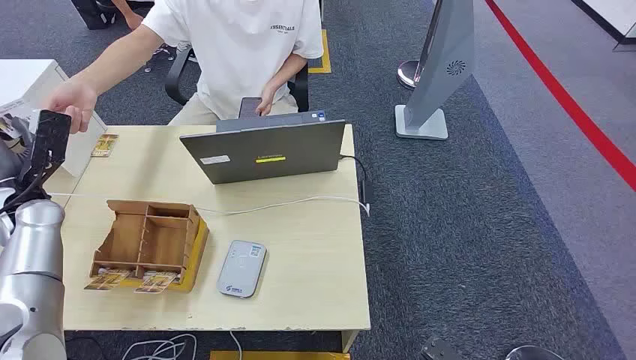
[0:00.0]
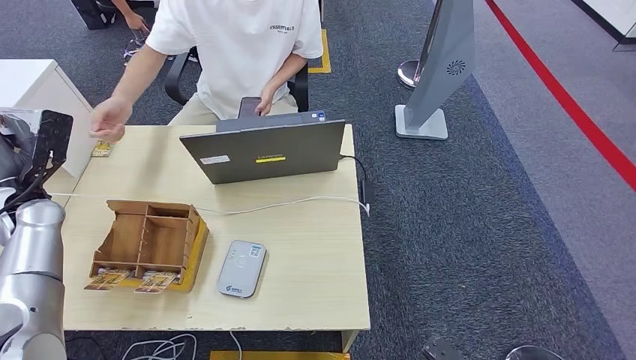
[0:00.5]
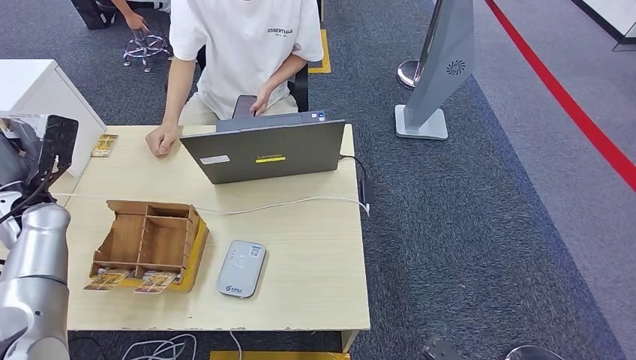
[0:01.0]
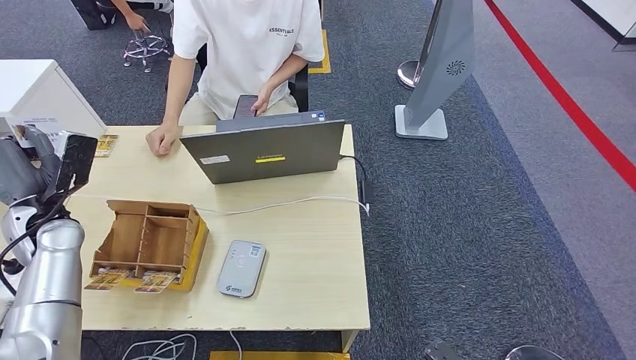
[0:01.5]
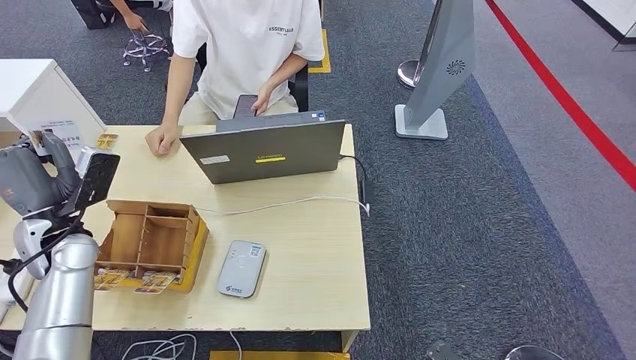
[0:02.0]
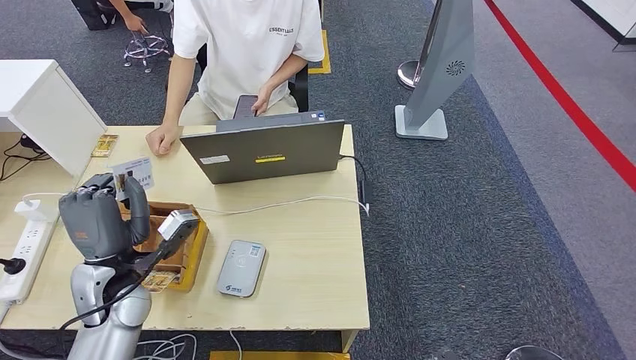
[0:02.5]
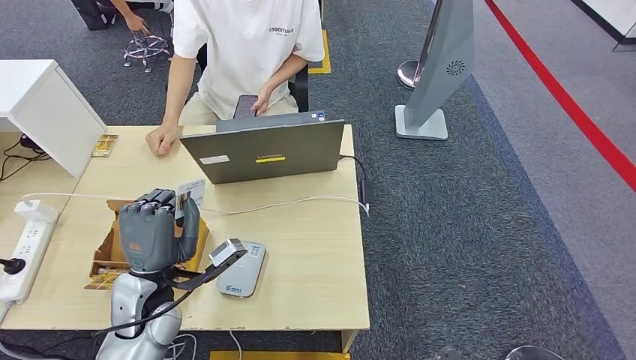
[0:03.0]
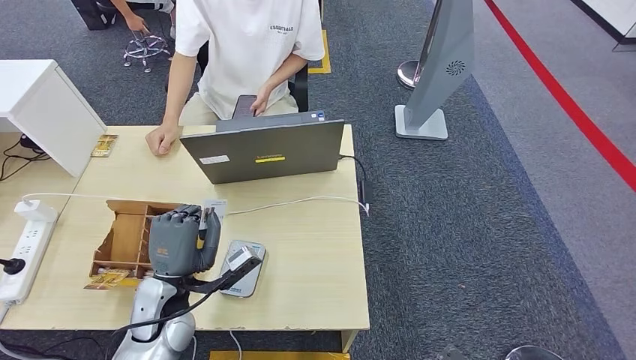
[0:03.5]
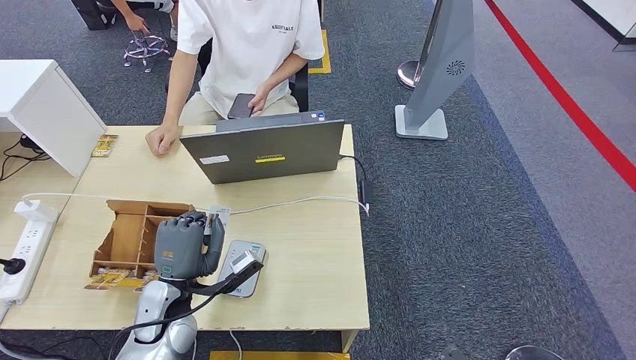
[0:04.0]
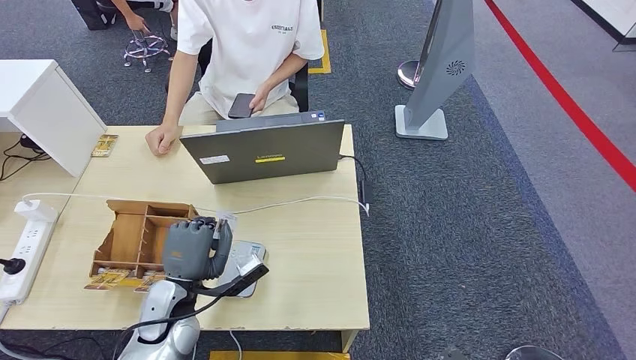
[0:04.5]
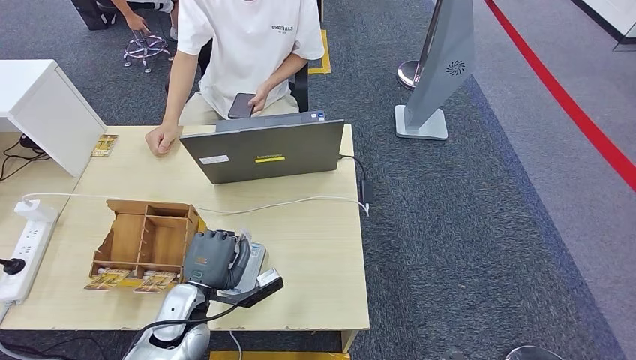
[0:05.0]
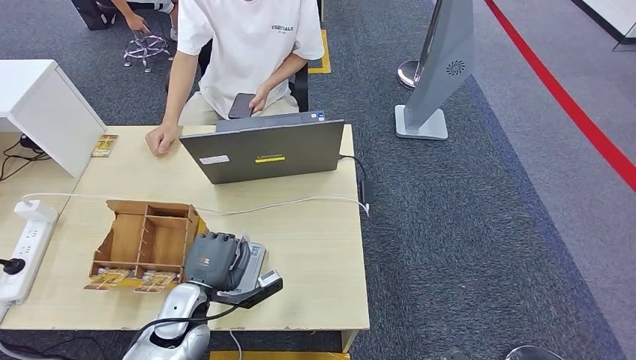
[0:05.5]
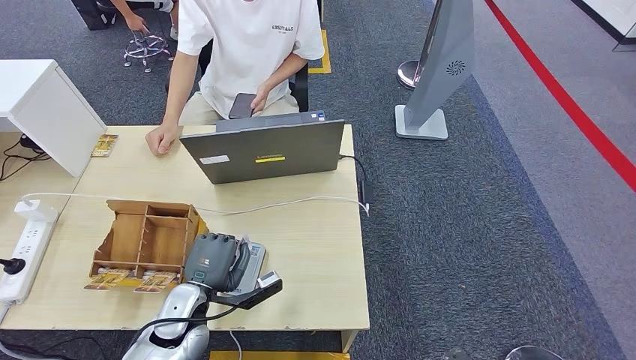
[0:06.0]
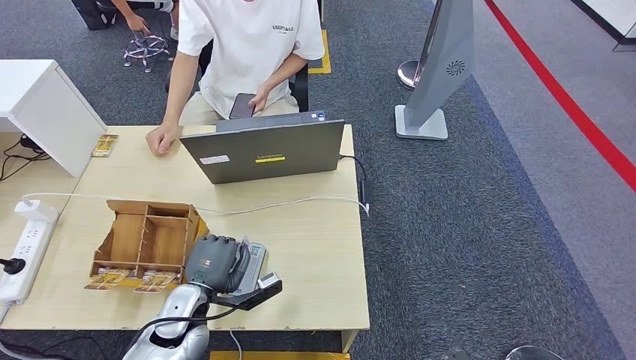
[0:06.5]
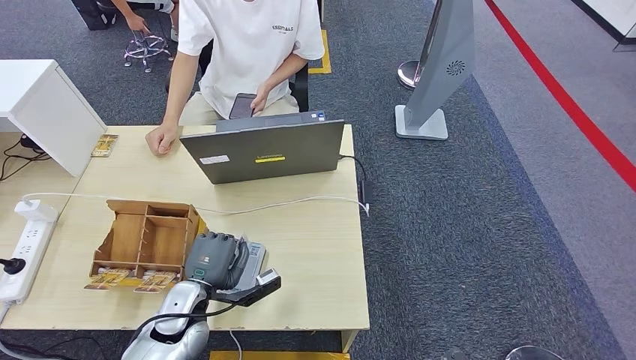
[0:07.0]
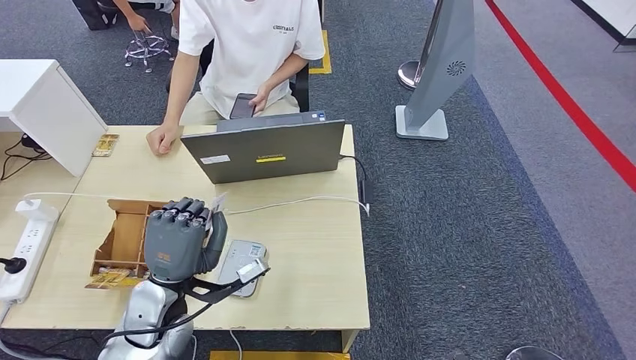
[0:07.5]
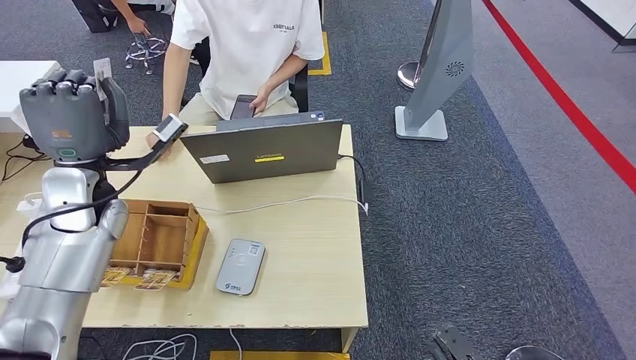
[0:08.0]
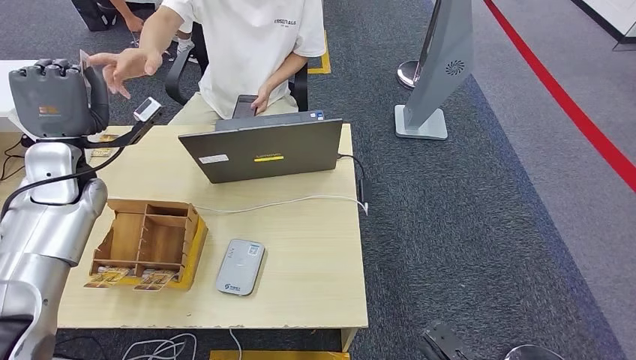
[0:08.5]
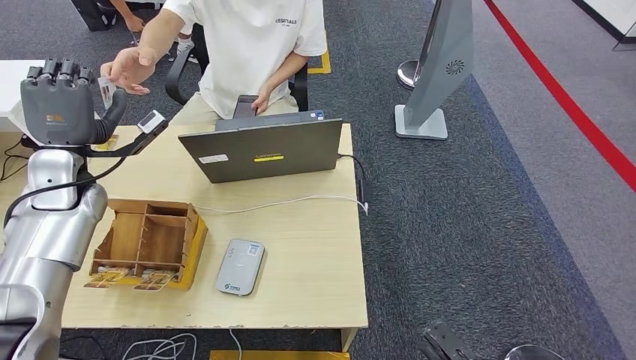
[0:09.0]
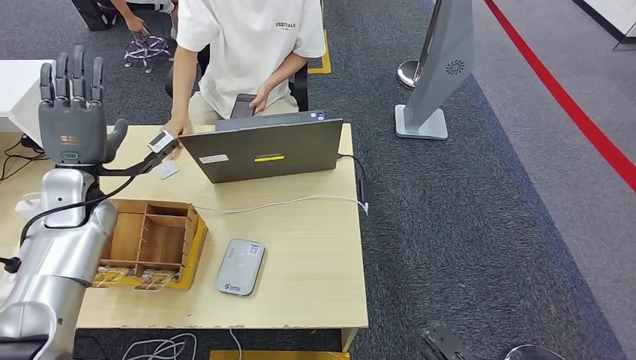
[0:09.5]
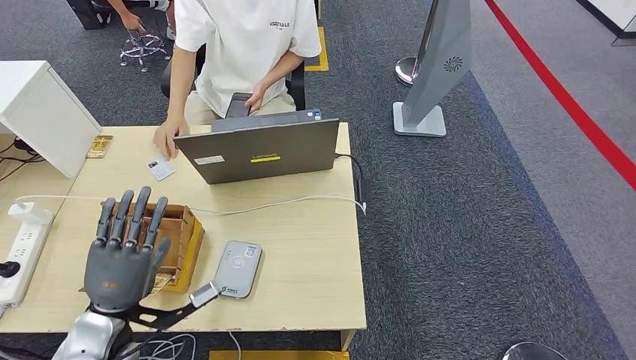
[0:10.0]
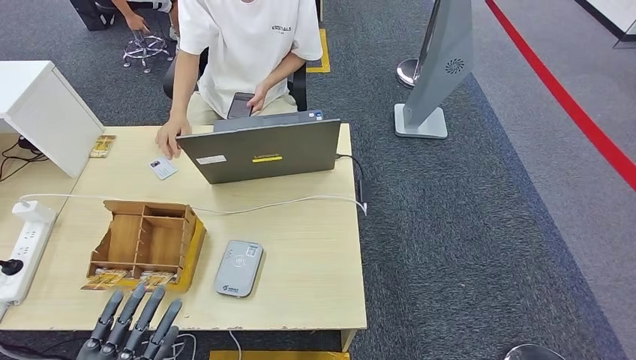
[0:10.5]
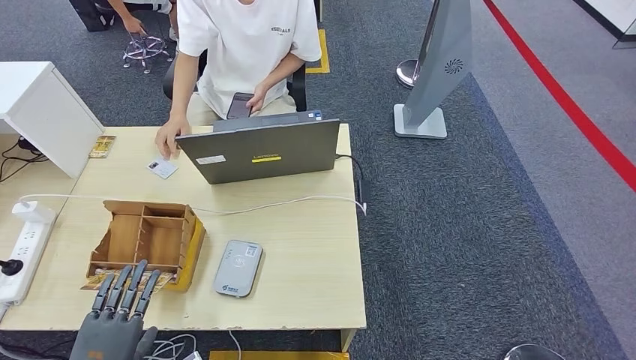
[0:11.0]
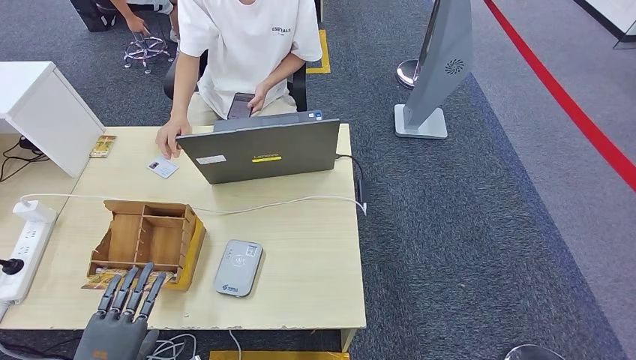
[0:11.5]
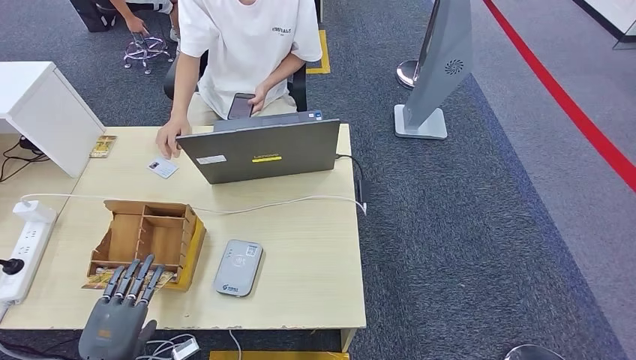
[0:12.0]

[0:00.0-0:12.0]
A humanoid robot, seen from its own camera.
Step, 0:00.0 to 0:00.5: Take the ID card from the person's hand.
Step, 0:01.0 to 0:08.0: Place the ID card on the card reader.
0:02.0 to 0:04.0: The left hand goes about 20 cm to the right, downward and backward.
0:06.0 to 0:08.0: The left hand shifts approximately 25 cm upward, forward and to the left.
0:10.0 to 0:12.0: The left hand goes roughly 10 cm backward and downward.

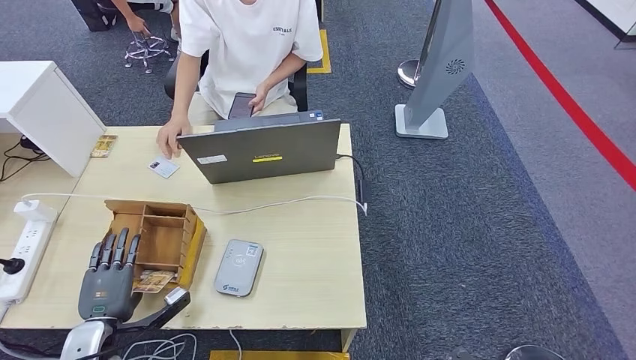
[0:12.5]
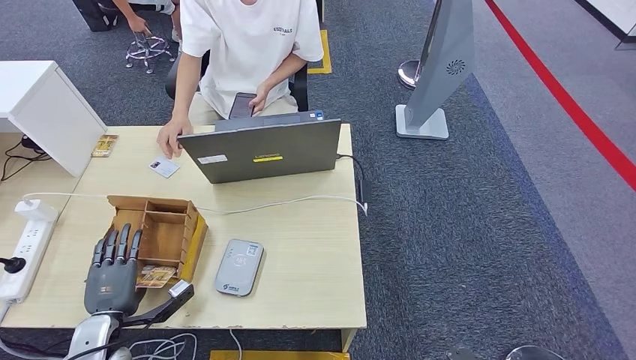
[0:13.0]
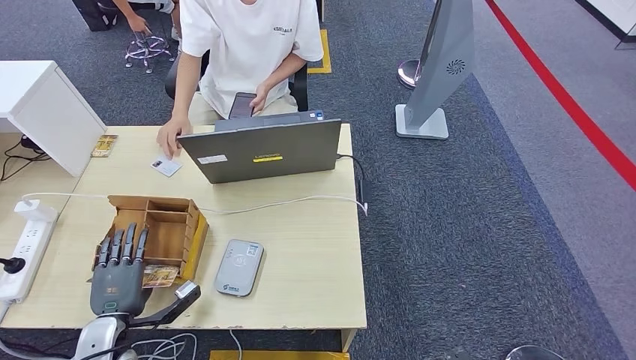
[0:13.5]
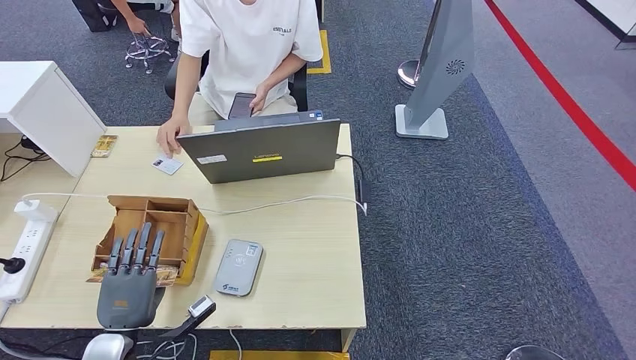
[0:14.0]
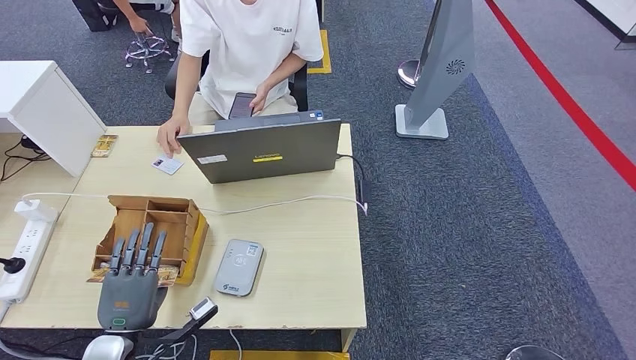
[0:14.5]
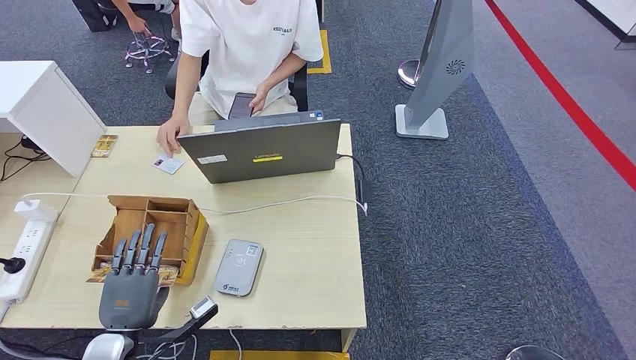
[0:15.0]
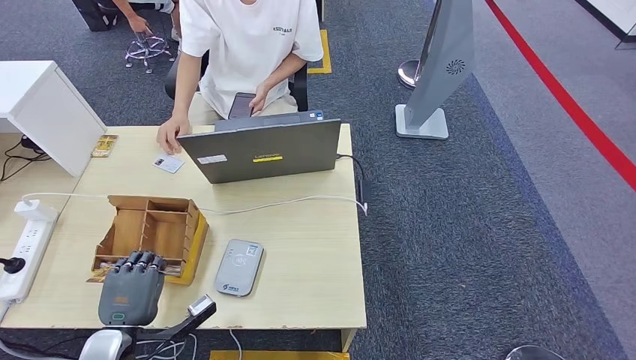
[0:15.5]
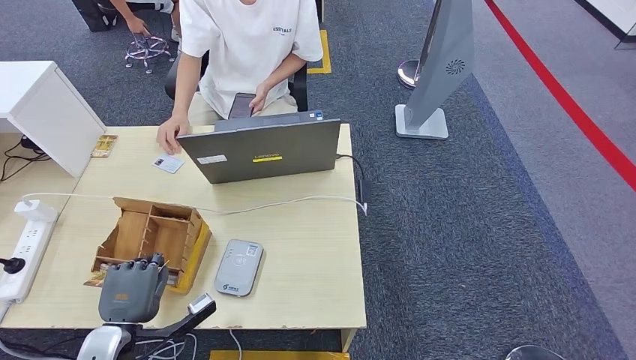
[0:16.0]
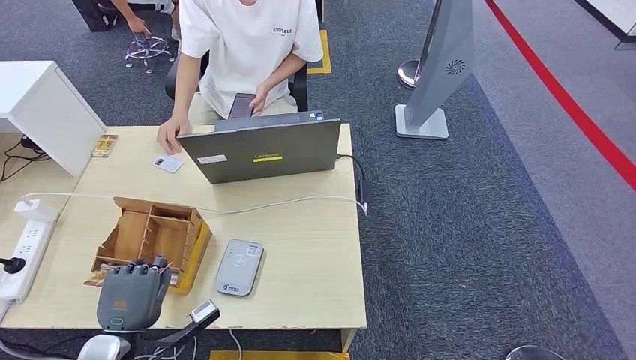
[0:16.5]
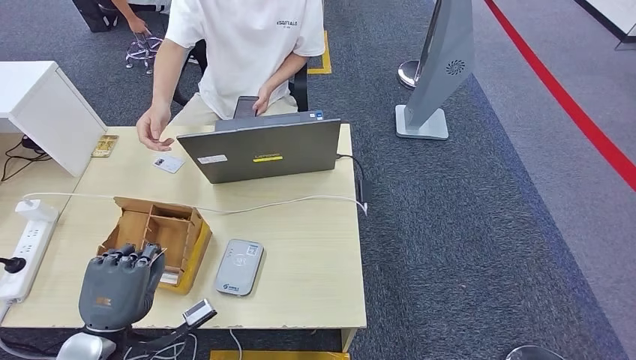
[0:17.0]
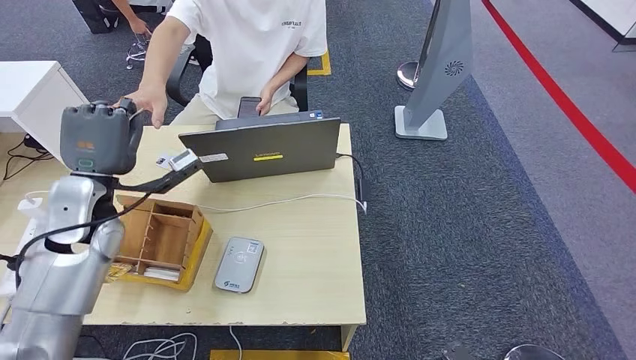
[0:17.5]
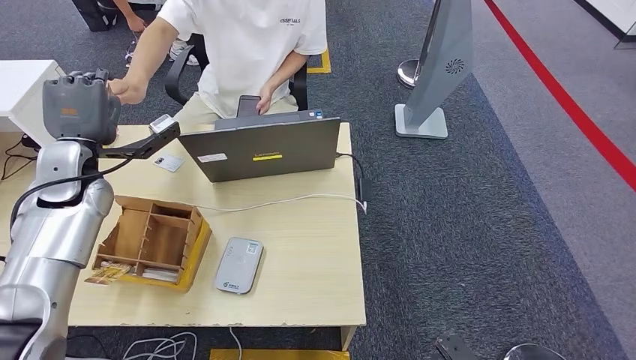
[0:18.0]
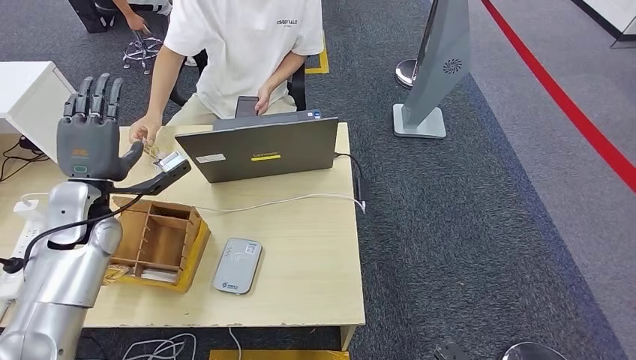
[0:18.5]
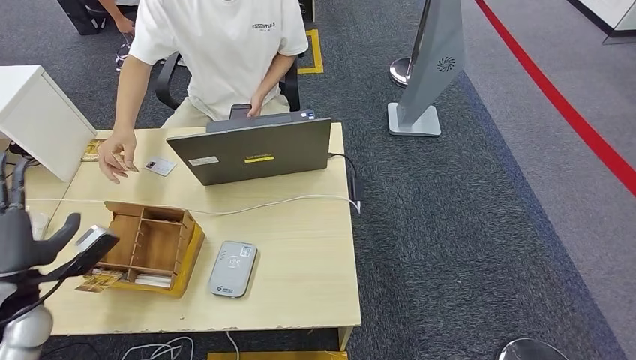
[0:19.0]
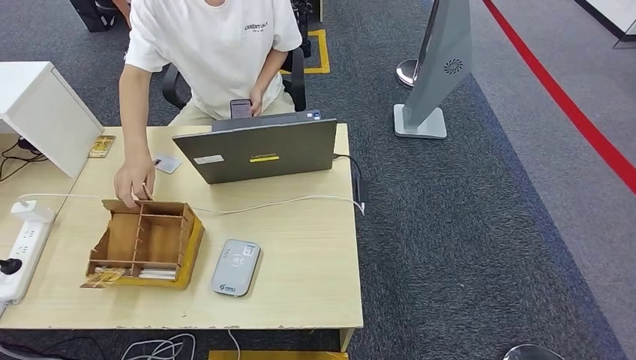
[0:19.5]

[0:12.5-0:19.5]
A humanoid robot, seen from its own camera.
Step, 0:12.5 to 0:16.5: Pick up the room key from the key card box.
Step, 0:17.0 to 0:19.5: Hand the room key to the person.
0:12.5 to 0:14.5: The left hand is displaced to the right by some 5 cm.
0:14.5 to 0:16.0: There are only small adjustments of the hands.
